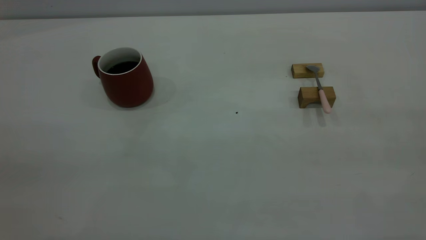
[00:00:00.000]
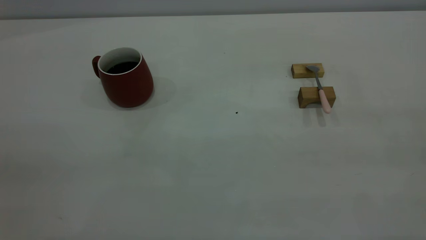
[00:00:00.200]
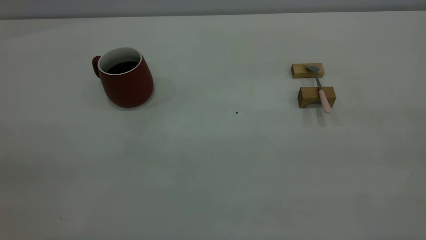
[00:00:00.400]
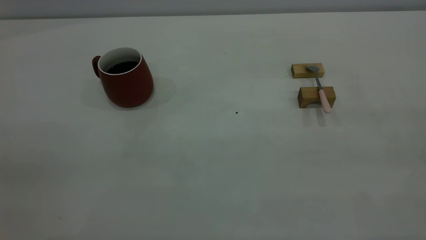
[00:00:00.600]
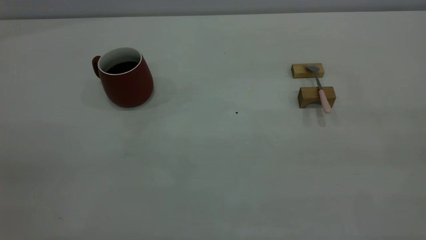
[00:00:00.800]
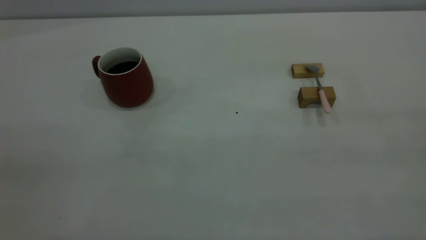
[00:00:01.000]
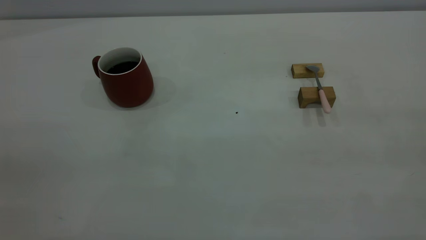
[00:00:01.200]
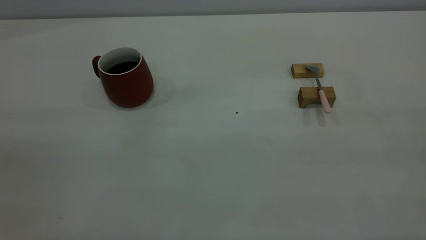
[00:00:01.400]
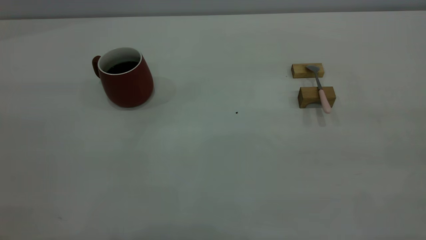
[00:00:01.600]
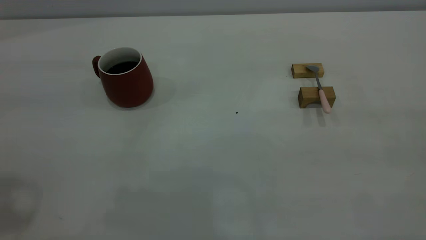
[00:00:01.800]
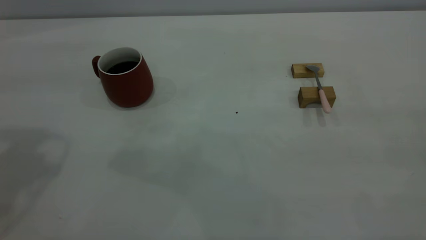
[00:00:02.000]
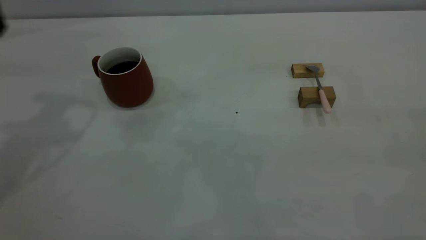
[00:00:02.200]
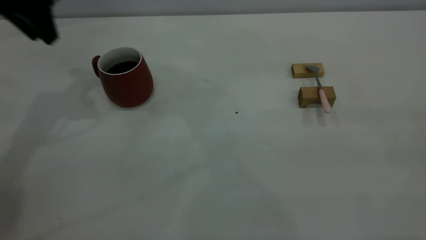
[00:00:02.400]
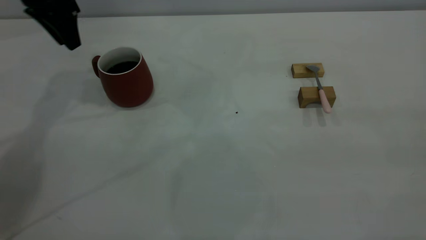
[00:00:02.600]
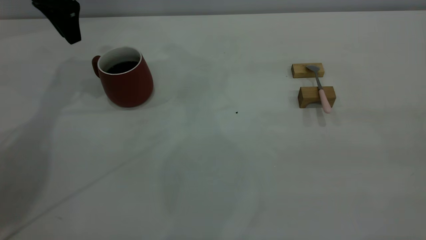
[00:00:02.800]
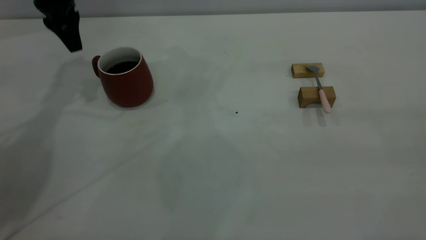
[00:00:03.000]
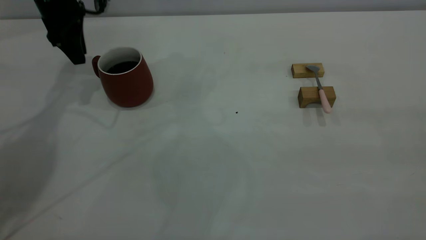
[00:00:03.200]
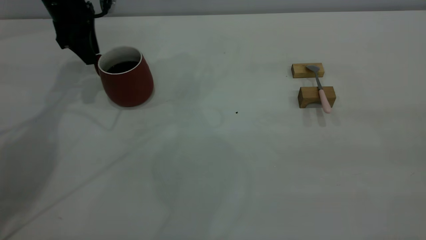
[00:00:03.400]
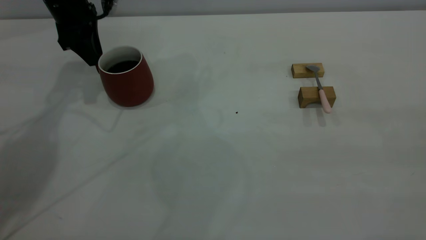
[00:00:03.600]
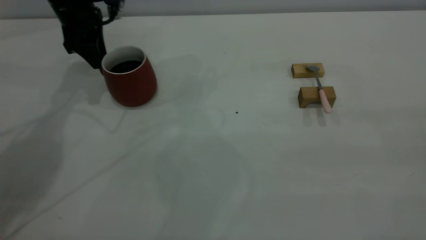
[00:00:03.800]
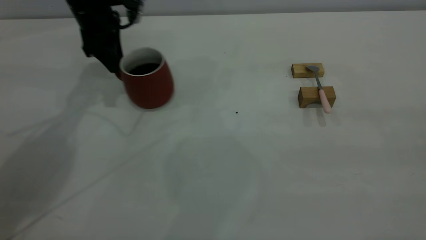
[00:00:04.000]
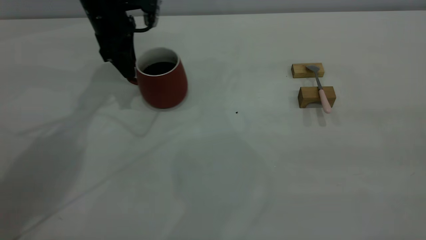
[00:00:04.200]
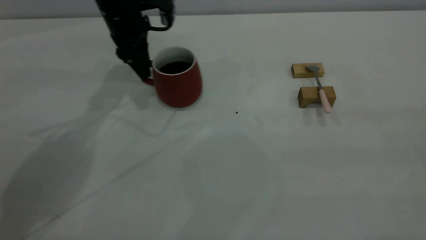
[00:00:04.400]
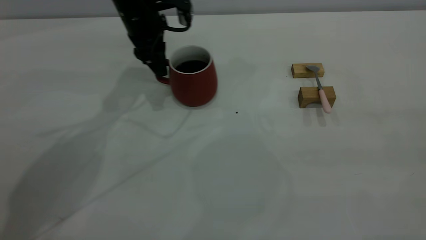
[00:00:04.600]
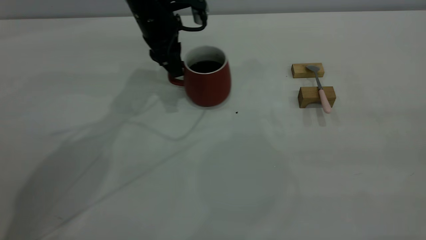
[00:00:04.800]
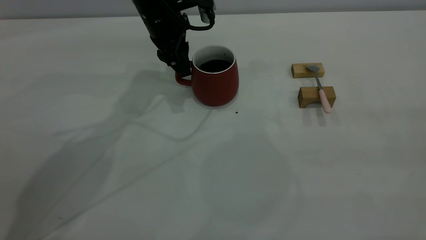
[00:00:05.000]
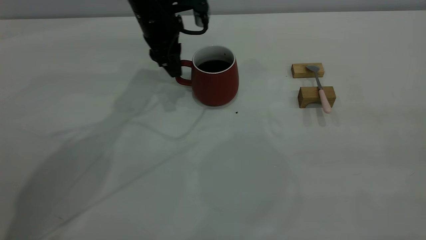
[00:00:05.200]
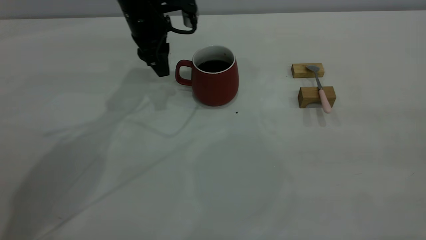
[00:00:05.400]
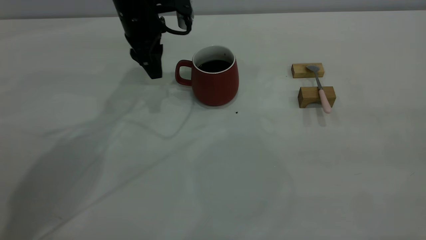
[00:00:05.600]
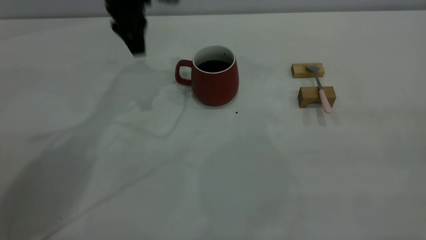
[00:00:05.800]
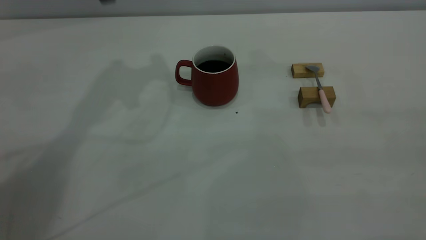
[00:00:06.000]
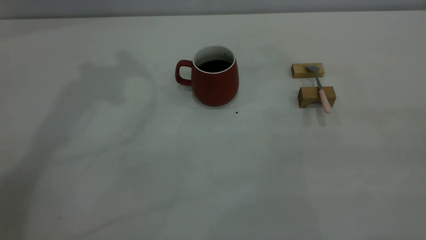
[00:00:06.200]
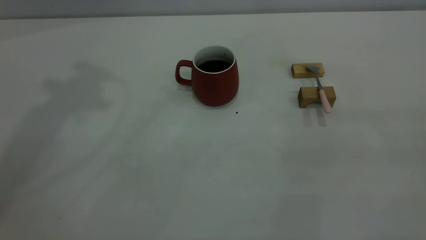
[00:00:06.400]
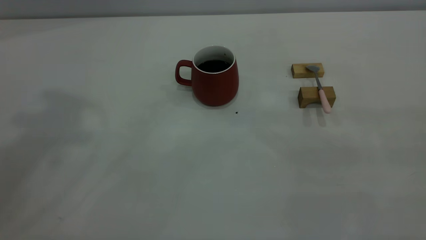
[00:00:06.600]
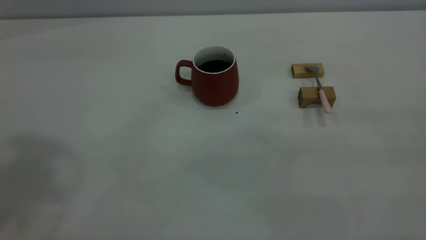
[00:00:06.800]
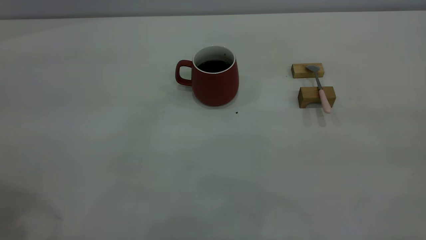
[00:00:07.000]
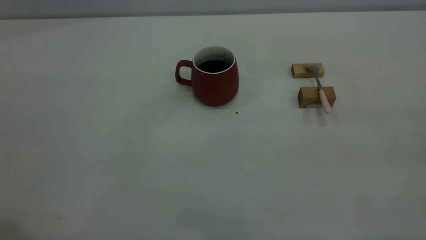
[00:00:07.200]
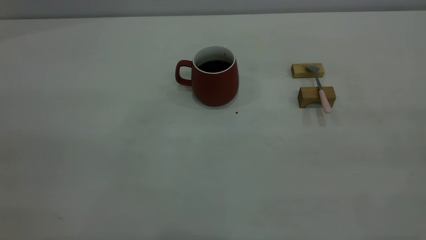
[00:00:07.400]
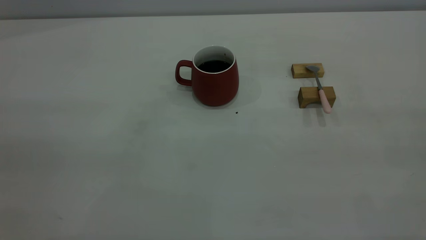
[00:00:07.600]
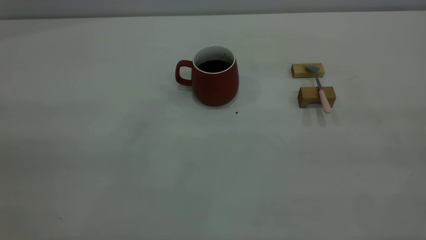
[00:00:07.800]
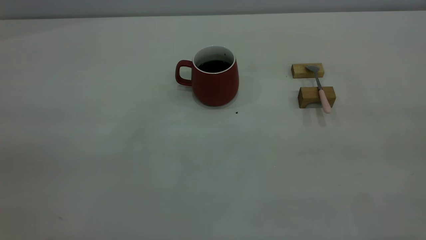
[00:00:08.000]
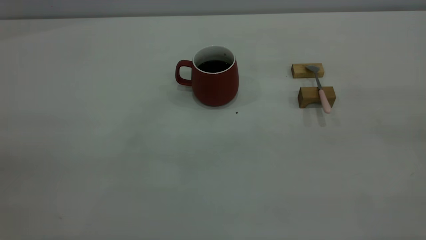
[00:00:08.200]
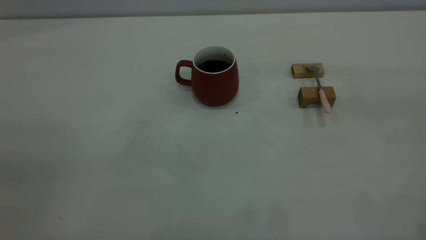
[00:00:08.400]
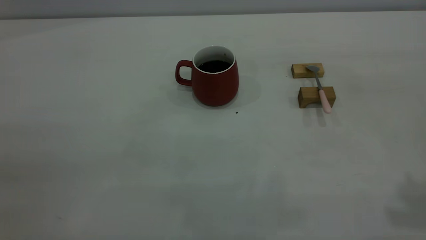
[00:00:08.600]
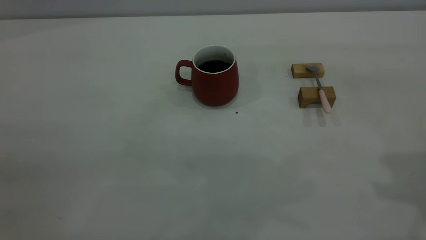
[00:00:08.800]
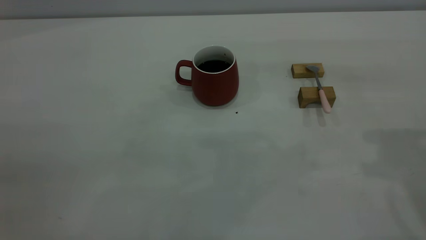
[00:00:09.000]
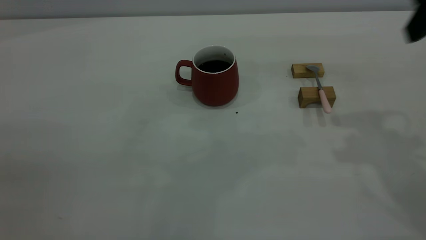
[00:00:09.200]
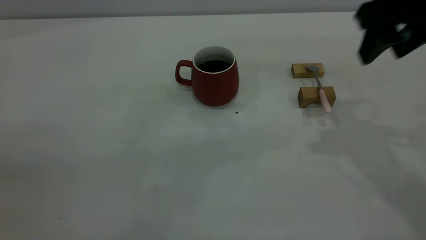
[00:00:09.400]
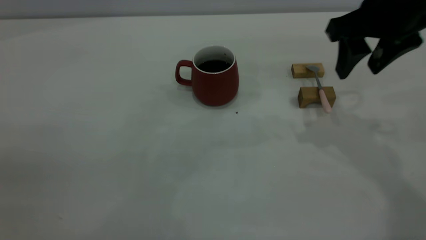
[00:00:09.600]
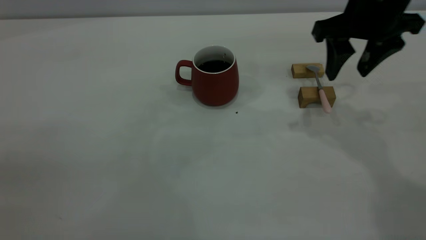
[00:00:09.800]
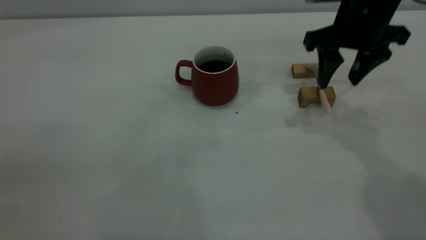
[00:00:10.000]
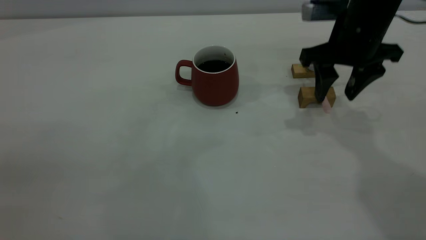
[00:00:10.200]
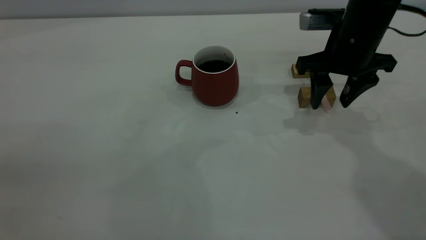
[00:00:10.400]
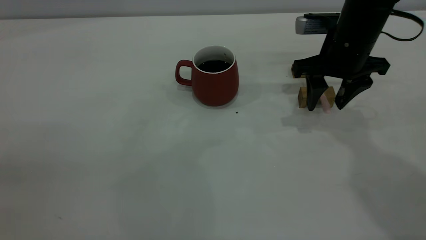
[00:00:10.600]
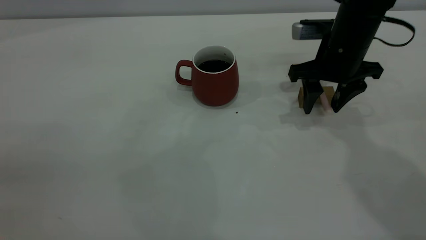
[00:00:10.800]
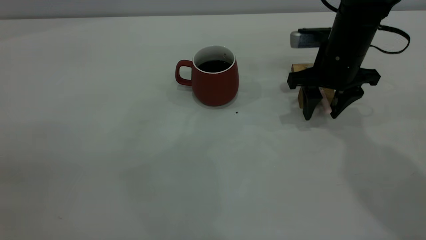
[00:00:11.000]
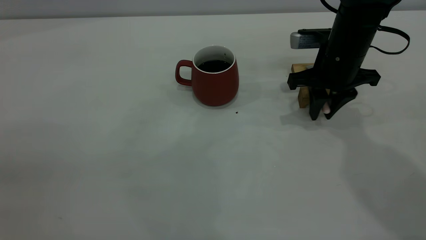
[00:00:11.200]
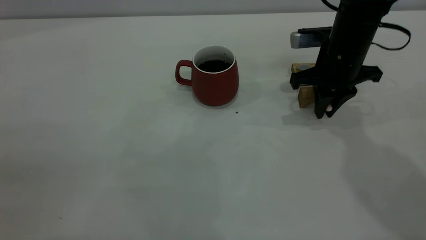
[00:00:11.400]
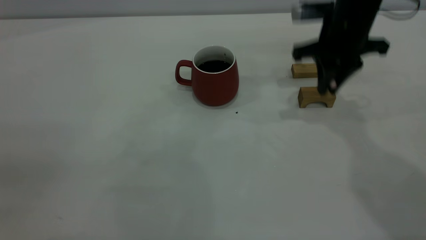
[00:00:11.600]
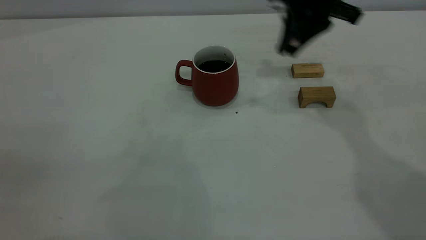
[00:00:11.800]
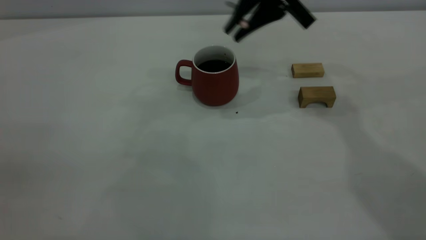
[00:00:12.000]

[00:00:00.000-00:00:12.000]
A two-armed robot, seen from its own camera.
Step, 00:00:00.000 to 00:00:05.600: Move the cup with coffee to the center of view.
Step, 00:00:05.800 to 00:00:11.400: Pick up the spoon.
00:00:01.600 to 00:00:03.000: The left gripper is displaced forward and downward by some 40 cm.
00:00:03.000 to 00:00:04.400: The left gripper goes about 10 cm to the right.
00:00:04.400 to 00:00:06.000: The left gripper shifts approximately 20 cm upward.
00:00:09.000 to 00:00:10.400: The right gripper travels downward, forward and to the left by some 25 cm.
00:00:10.400 to 00:00:12.000: The right gripper moves upward and to the left, about 10 cm, and closes its fingers.

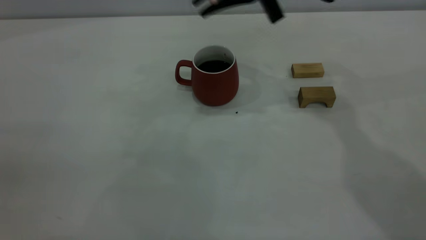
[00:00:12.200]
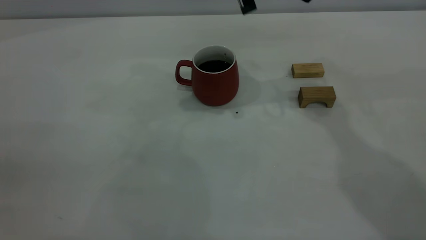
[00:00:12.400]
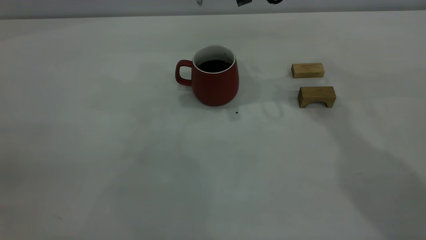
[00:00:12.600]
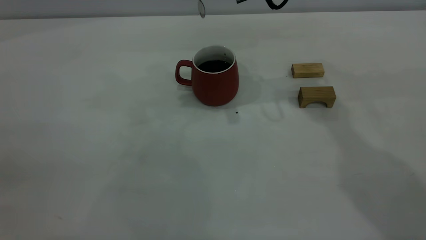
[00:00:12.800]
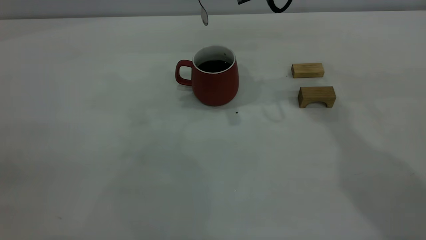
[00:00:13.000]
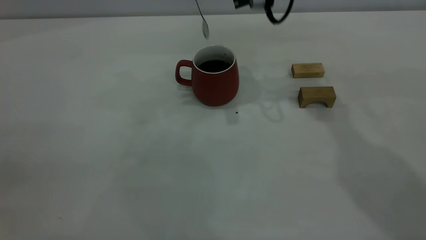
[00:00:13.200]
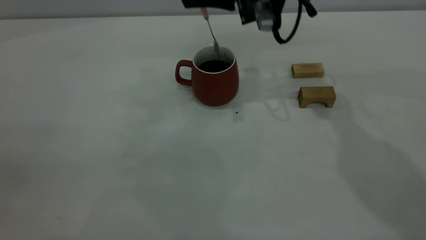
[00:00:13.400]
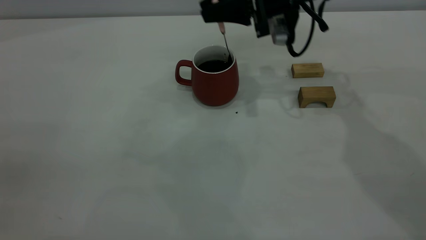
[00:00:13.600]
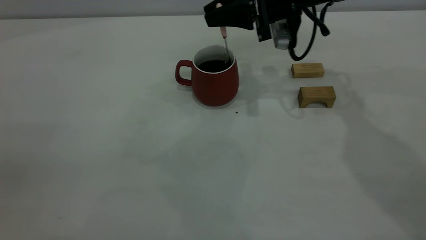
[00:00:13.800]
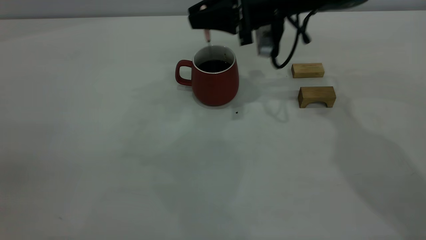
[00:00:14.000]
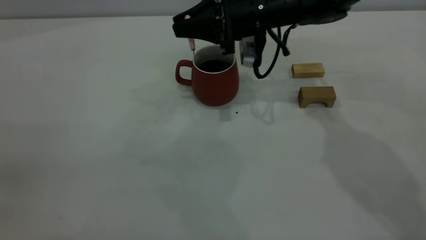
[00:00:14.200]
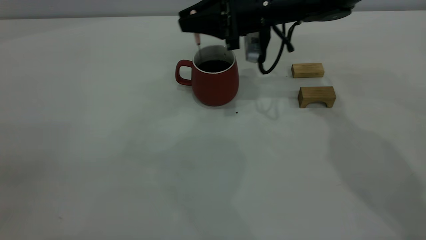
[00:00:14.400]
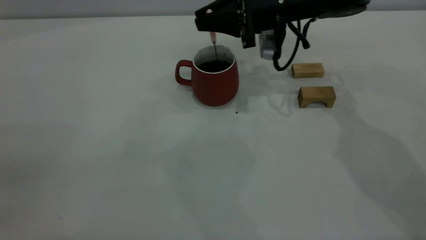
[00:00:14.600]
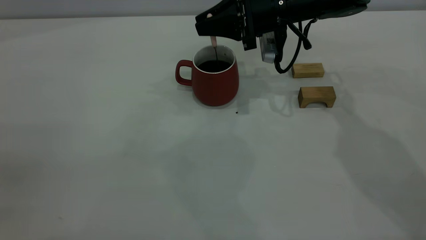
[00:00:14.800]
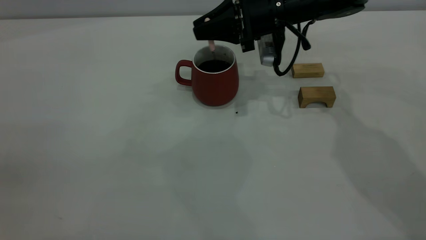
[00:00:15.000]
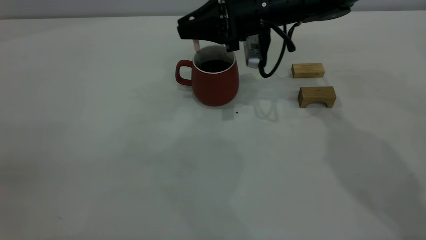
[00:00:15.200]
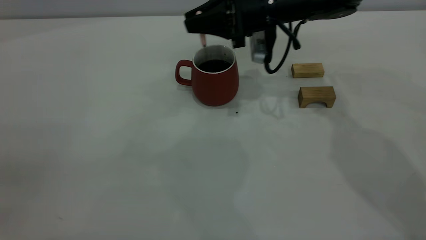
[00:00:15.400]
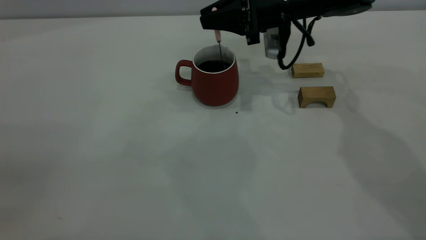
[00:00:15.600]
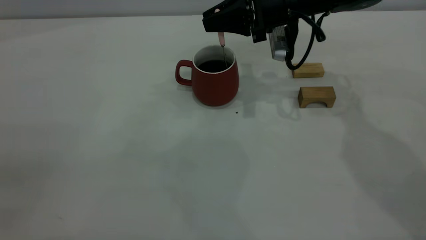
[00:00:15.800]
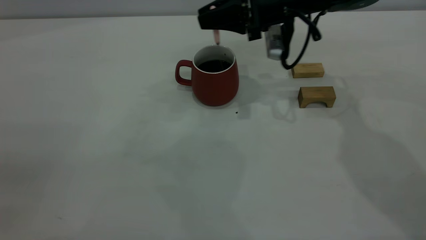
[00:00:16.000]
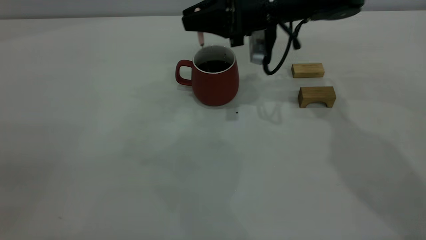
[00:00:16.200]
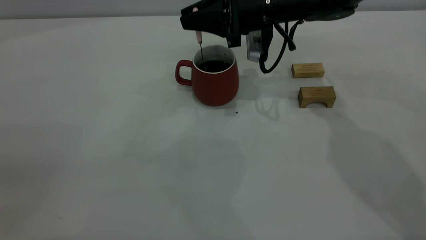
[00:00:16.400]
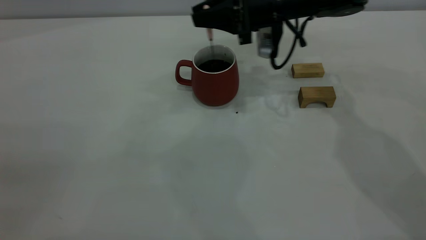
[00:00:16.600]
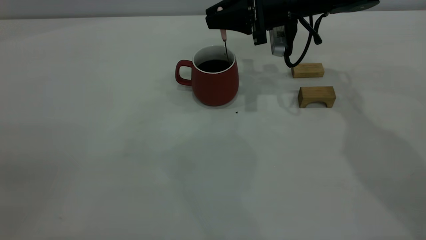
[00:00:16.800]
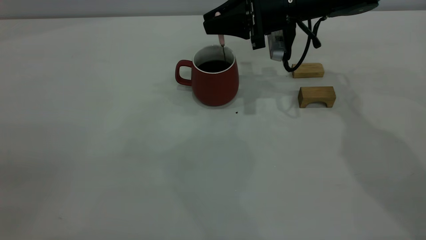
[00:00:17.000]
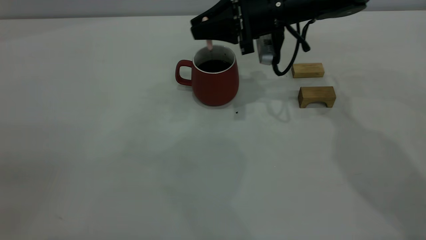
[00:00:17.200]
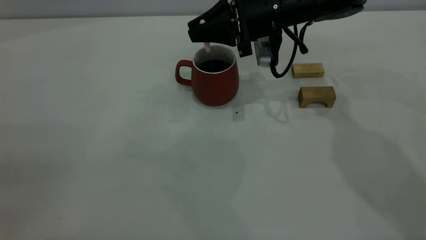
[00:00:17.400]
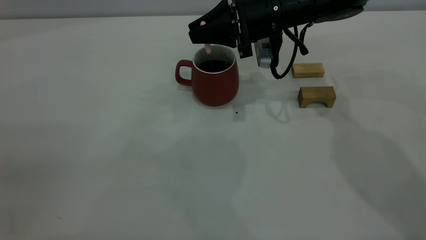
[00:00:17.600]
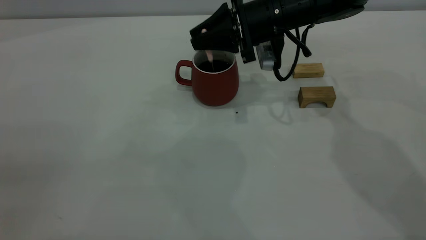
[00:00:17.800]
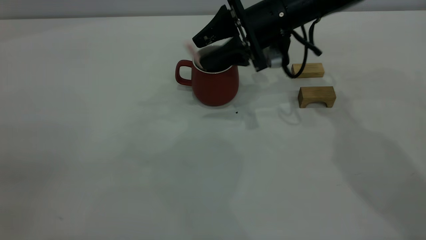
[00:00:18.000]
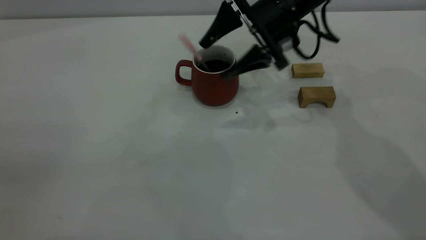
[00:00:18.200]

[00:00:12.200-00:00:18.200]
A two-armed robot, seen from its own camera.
00:00:12.200 to 00:00:13.800: The right gripper heads downward, covering some 10 cm.
00:00:13.800 to 00:00:16.600: There are only small adjustments of the grippers.
00:00:16.600 to 00:00:18.200: The right gripper opens its fingers.
